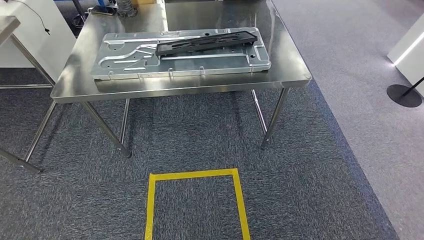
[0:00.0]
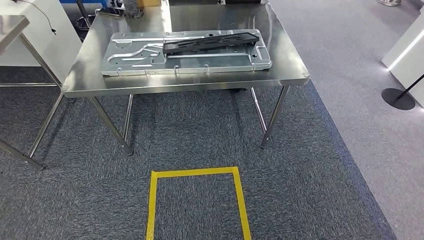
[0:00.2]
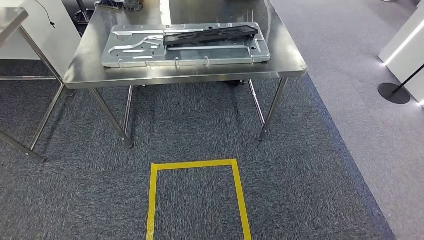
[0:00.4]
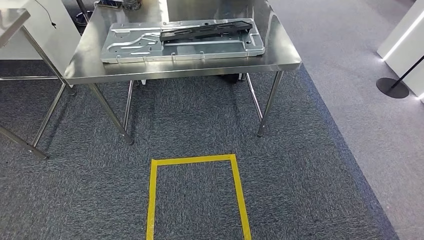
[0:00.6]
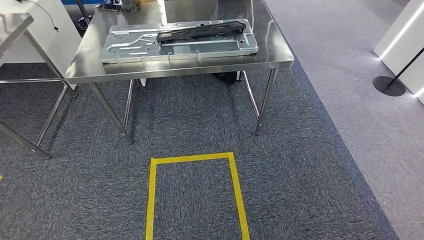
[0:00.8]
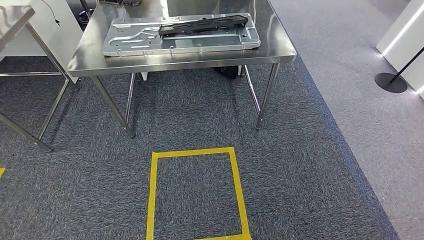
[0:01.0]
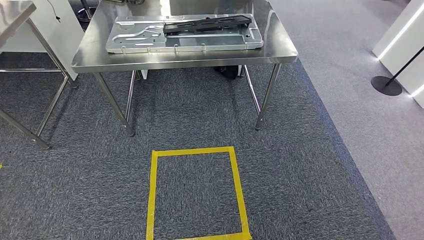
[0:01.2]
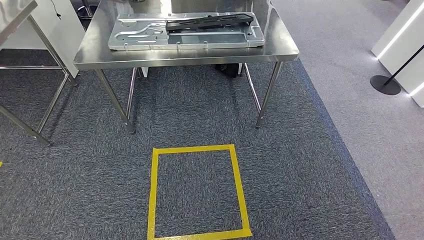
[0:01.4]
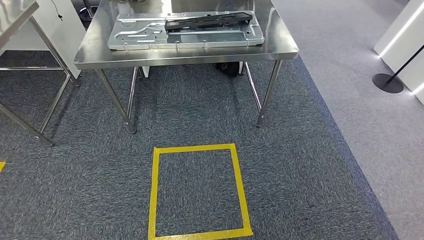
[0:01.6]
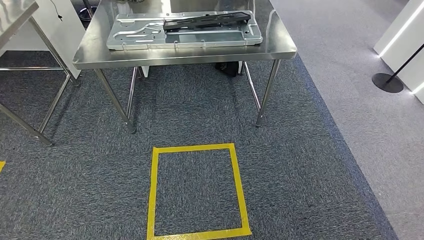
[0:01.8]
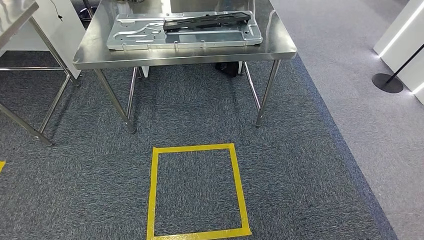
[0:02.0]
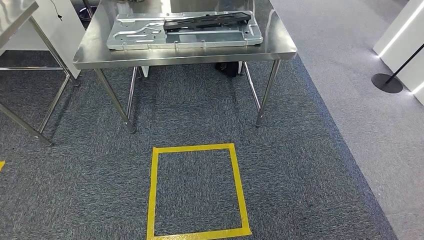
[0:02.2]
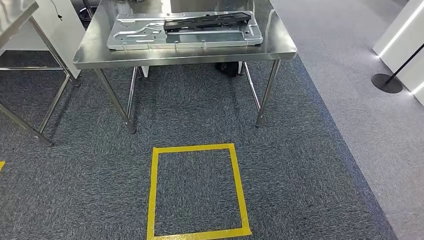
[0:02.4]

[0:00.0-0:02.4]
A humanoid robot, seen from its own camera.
Step, 0:00.0 to 0:02.2: Return to the initial position at the shelf.
0:01.2 to 0:02.4: The hands stay close to where they were, moving slightly.

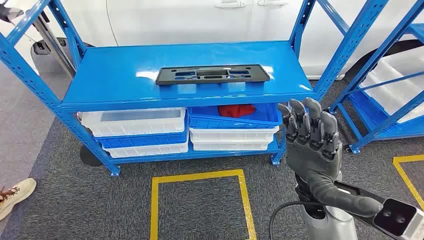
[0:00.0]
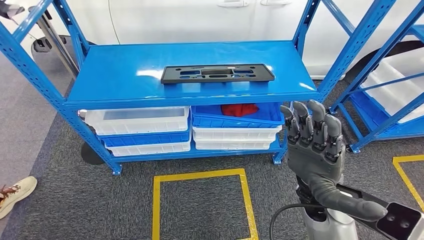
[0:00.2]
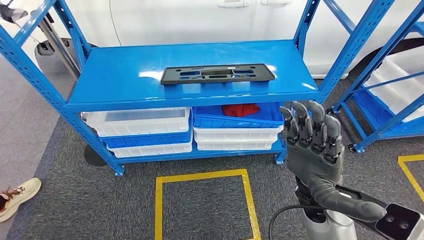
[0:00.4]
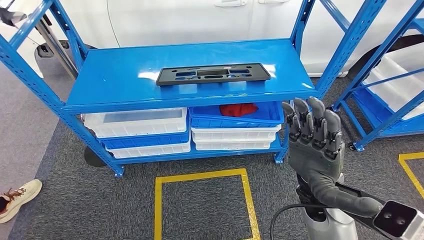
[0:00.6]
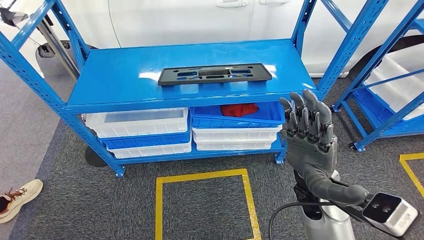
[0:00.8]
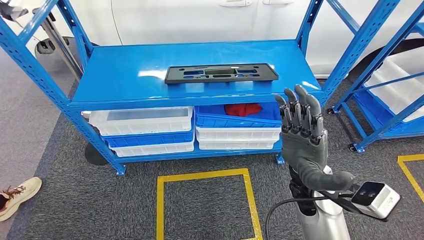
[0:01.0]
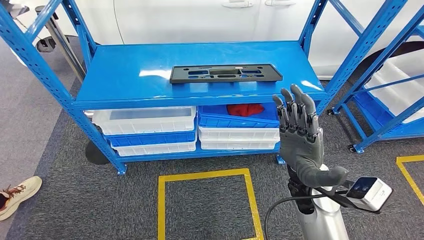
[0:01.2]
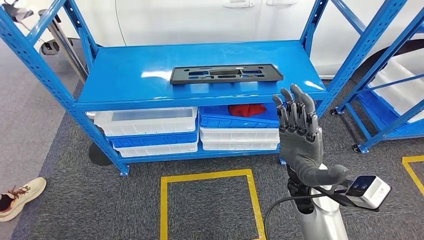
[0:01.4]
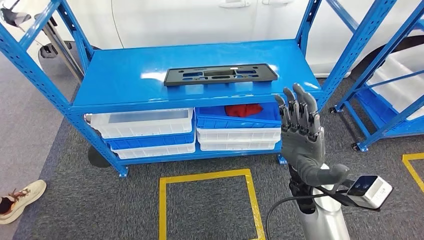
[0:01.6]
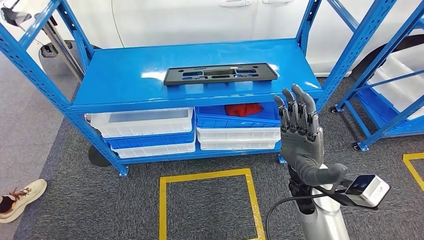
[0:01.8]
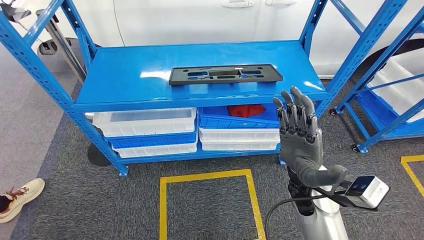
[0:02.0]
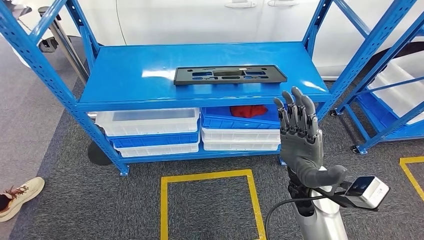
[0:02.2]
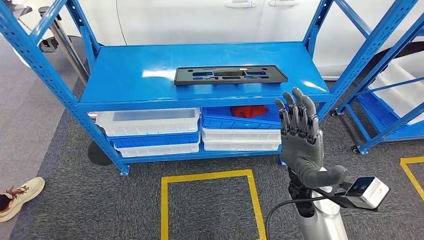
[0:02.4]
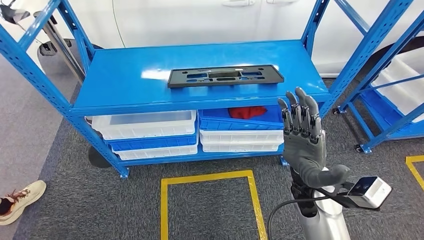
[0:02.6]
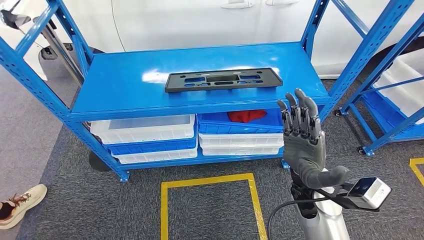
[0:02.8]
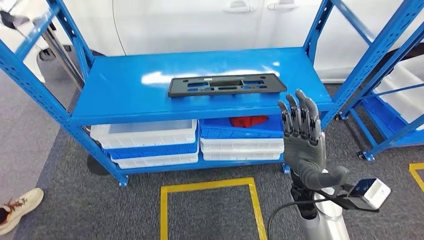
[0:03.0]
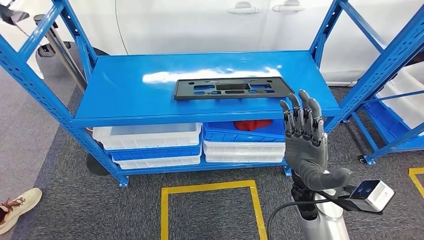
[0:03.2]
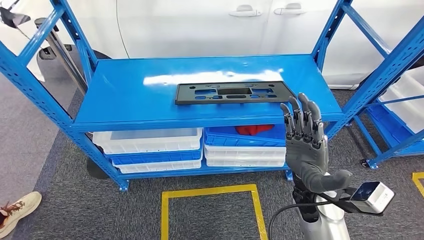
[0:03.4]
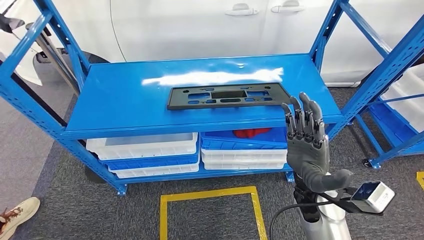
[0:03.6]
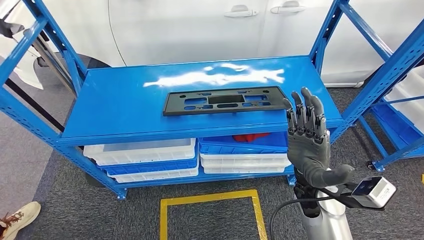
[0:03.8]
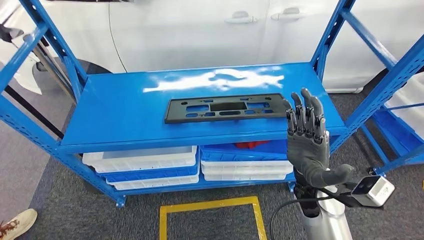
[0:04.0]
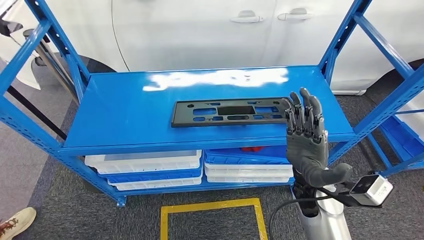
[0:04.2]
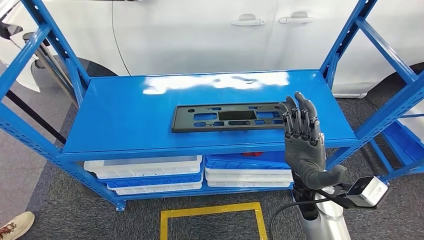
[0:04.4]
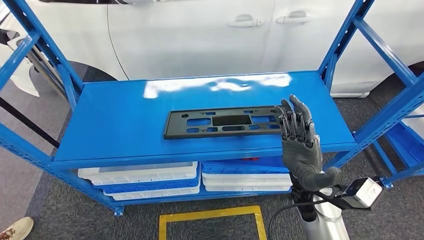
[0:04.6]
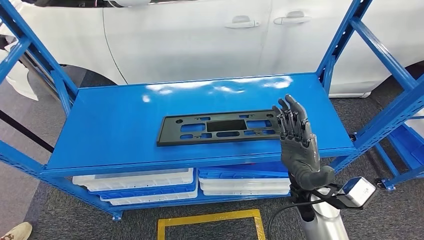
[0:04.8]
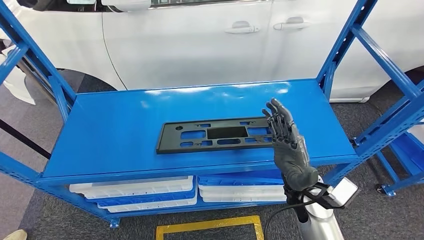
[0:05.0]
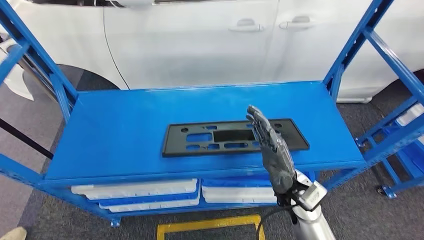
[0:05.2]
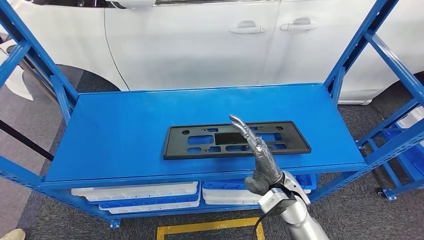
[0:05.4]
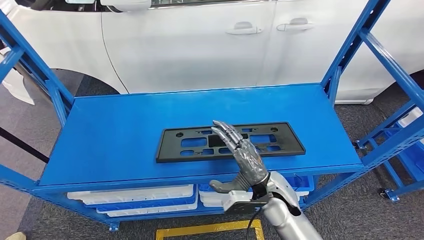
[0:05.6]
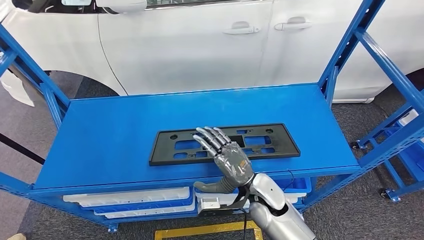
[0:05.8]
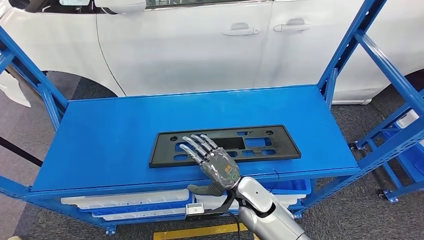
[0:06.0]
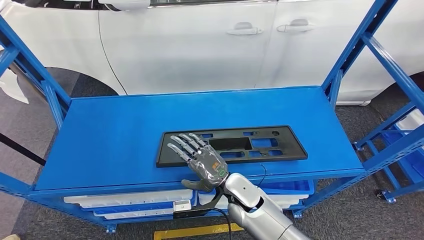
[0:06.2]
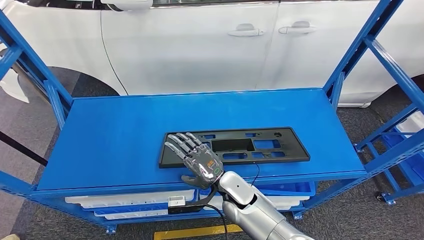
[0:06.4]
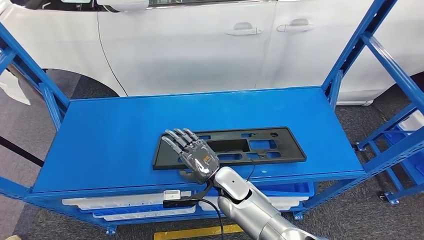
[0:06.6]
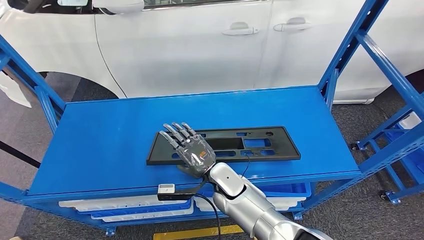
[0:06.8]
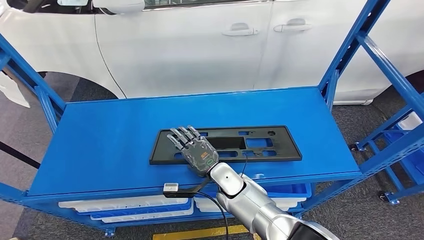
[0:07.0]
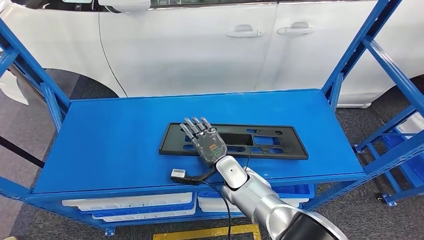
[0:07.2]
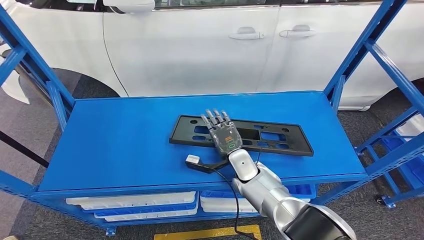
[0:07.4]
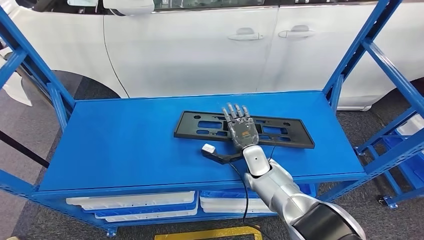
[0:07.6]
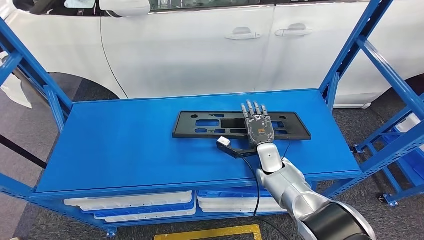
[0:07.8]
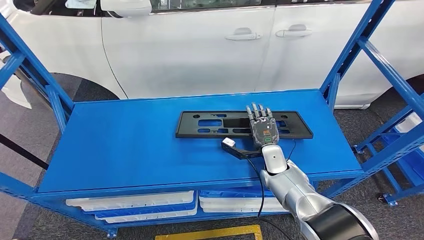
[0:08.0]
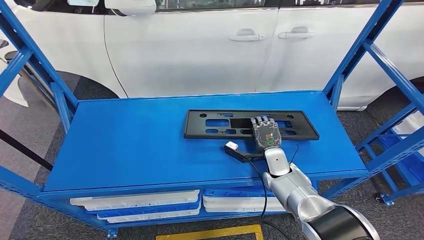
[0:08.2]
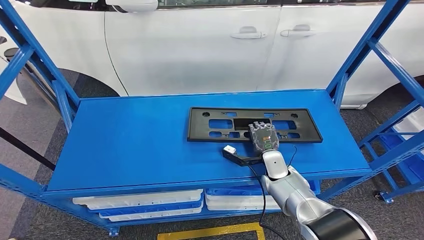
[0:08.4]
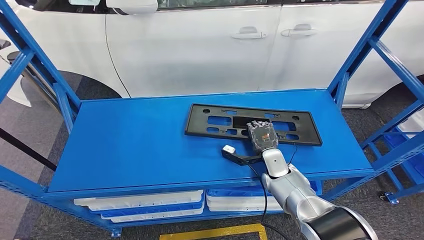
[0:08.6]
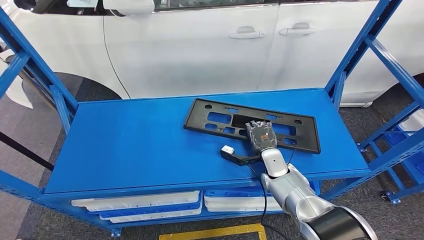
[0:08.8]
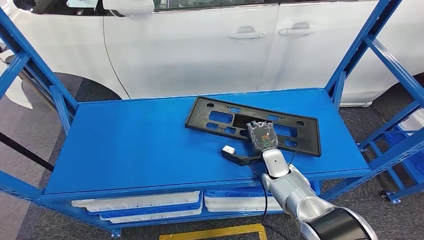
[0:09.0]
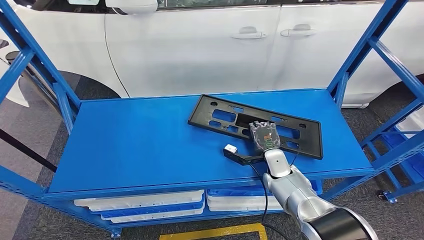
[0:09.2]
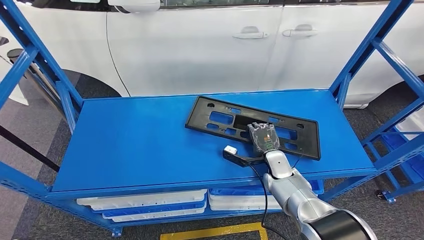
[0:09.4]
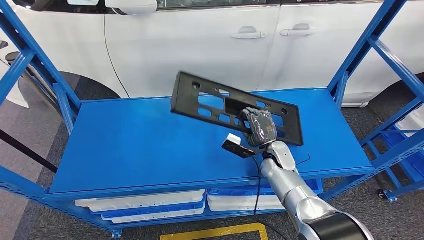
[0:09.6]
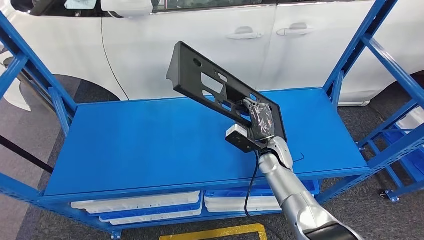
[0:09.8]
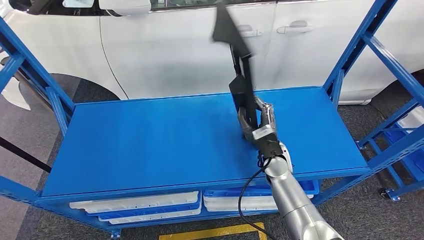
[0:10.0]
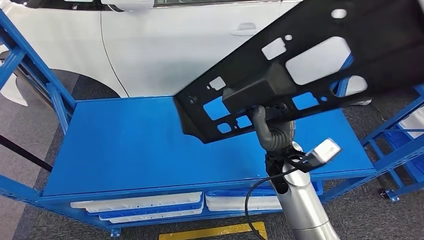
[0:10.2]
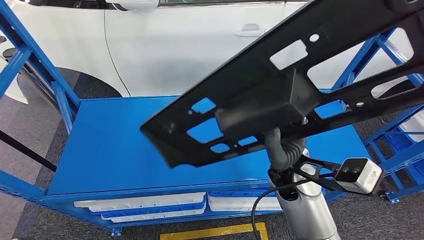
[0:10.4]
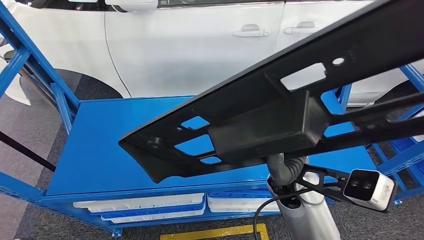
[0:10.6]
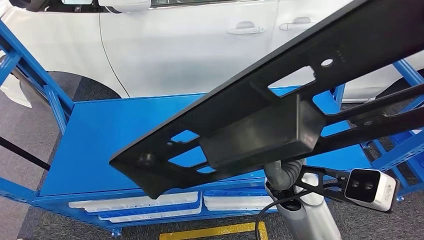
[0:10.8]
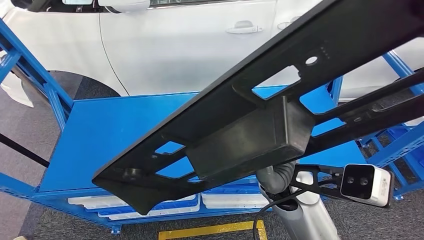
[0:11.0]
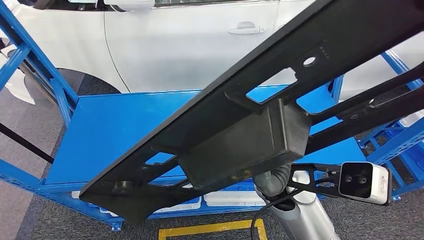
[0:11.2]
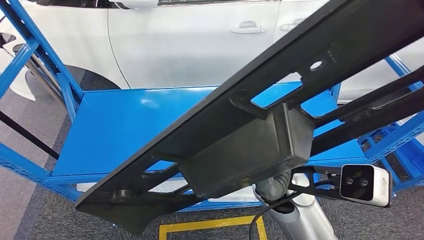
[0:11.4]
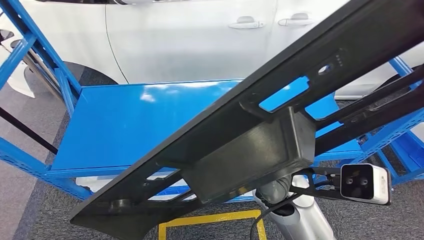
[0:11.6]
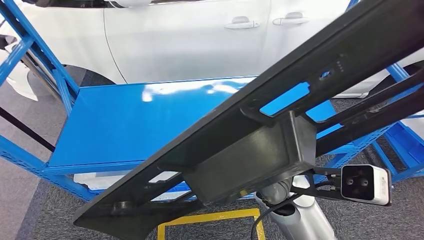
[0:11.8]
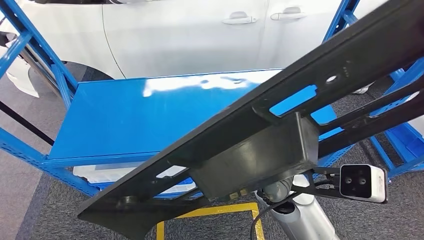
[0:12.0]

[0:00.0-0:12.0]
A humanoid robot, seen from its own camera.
Step, 0:00.0 to 0:10.0: Pick up the large material from the shelf.
0:07.6 to 0:09.0: The right hand shifts approximately 5 cm to the right.

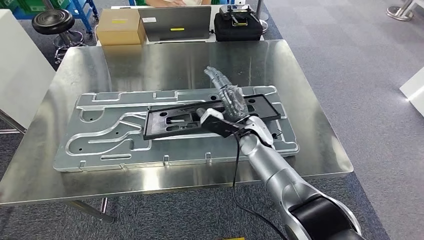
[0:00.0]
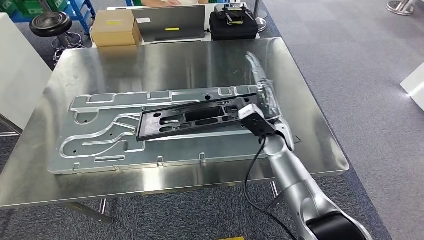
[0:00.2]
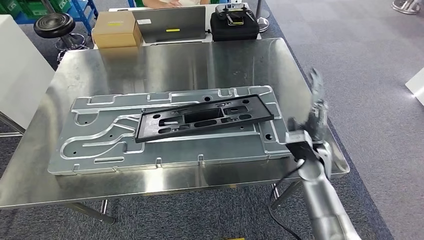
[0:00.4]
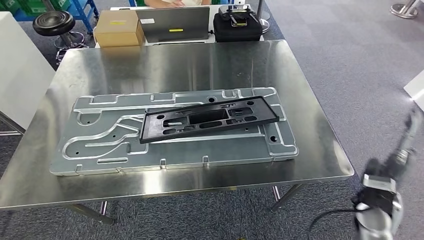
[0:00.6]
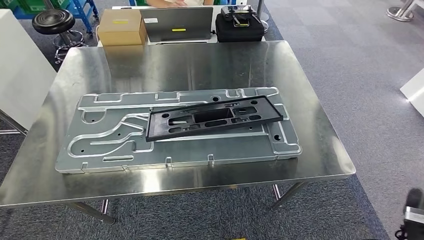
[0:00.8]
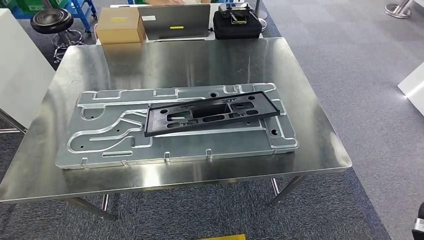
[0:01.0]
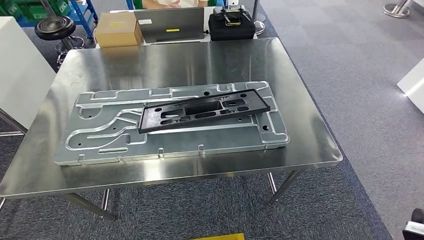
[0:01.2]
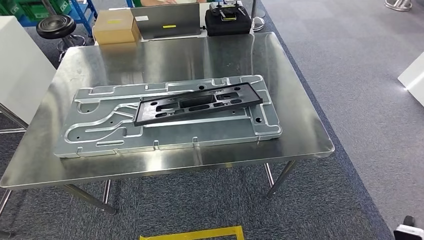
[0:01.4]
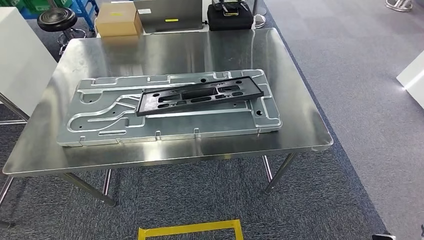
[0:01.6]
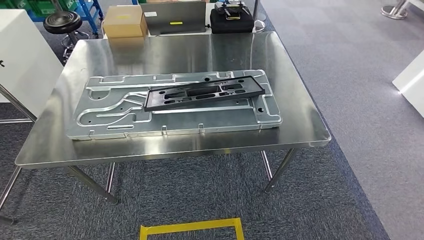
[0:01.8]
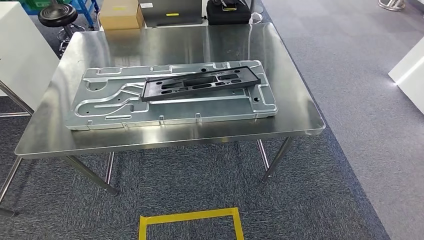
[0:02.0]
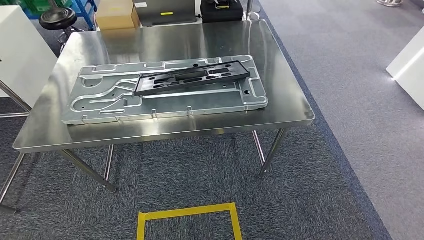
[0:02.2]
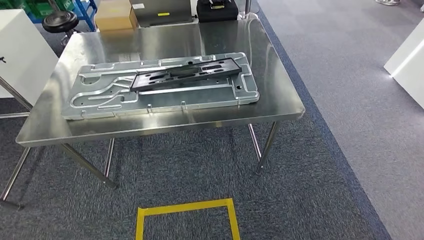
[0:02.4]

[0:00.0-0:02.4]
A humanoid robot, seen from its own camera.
Step, 0:00.0 to 0:02.0: Insert the large material into the corresponding slot on the workbench.
